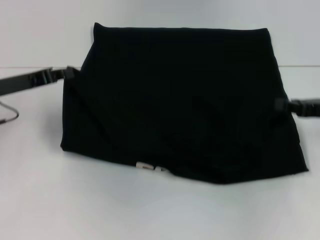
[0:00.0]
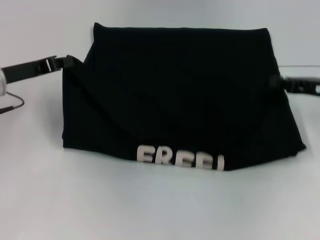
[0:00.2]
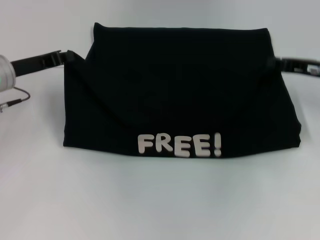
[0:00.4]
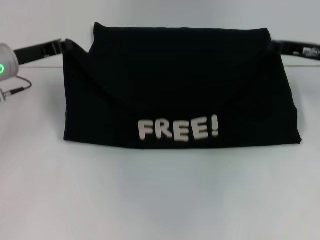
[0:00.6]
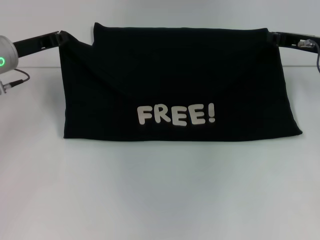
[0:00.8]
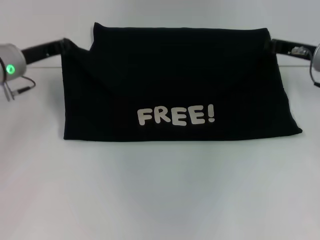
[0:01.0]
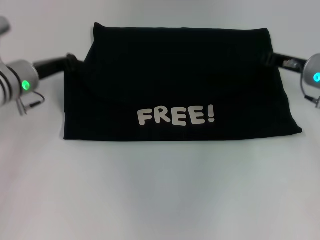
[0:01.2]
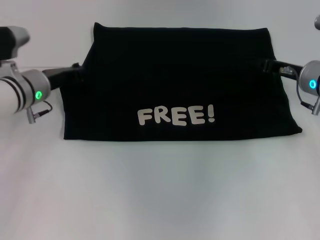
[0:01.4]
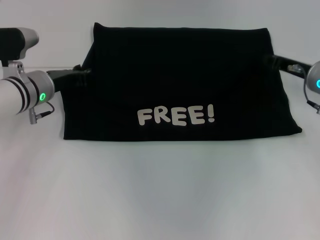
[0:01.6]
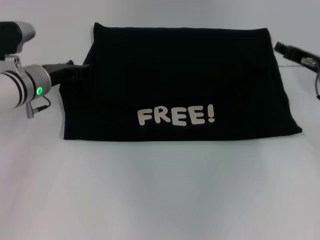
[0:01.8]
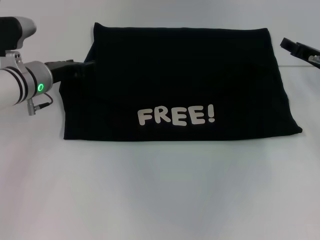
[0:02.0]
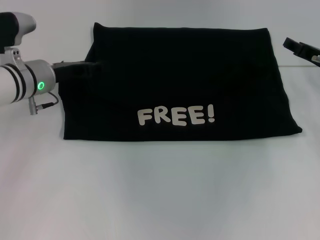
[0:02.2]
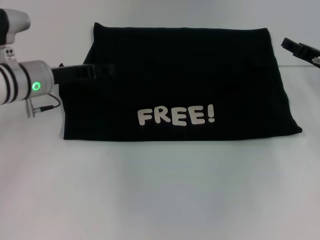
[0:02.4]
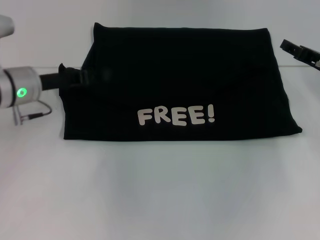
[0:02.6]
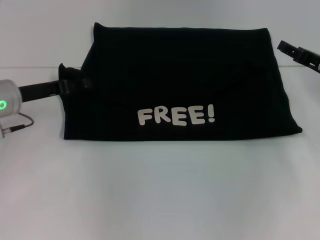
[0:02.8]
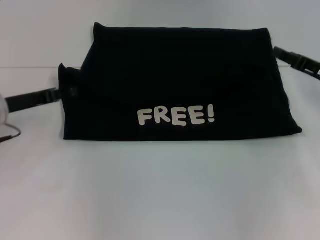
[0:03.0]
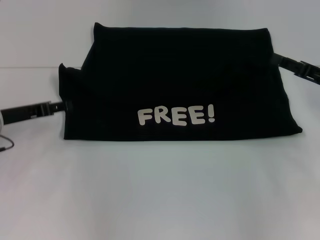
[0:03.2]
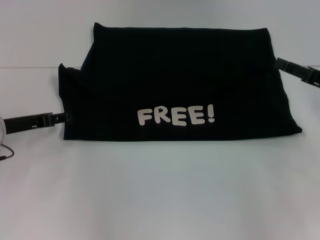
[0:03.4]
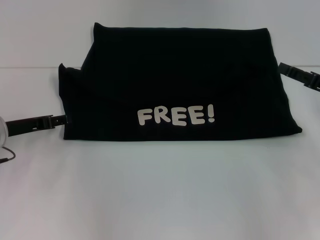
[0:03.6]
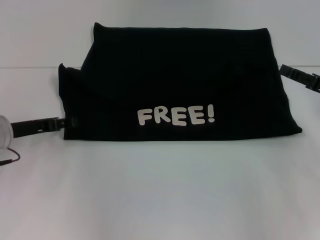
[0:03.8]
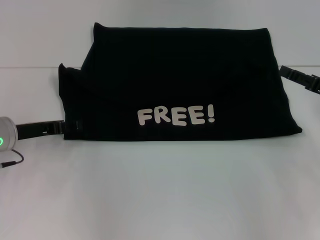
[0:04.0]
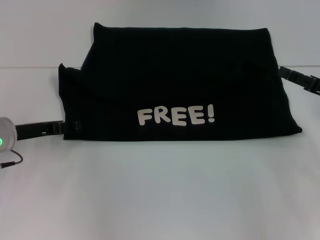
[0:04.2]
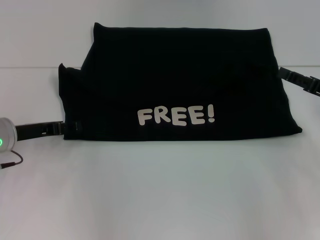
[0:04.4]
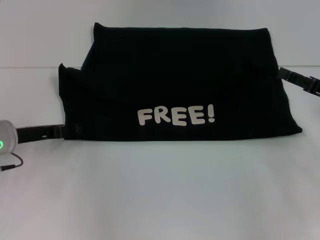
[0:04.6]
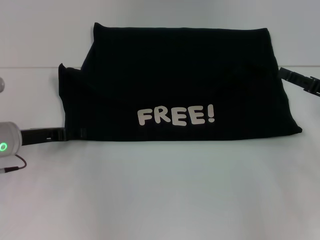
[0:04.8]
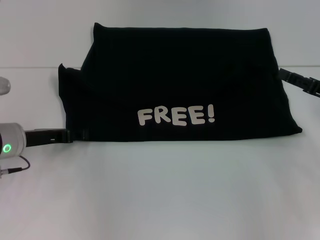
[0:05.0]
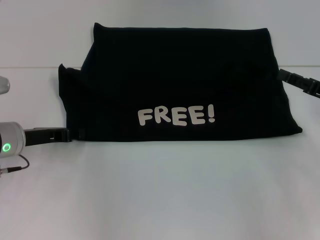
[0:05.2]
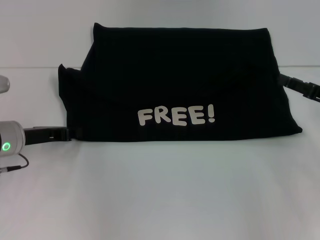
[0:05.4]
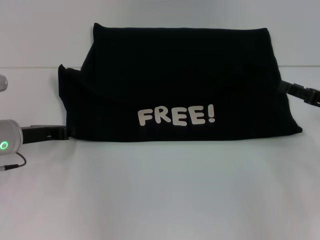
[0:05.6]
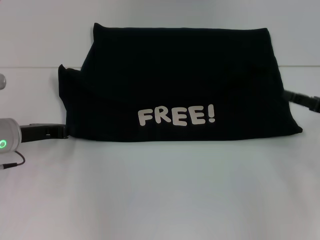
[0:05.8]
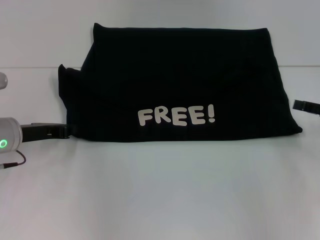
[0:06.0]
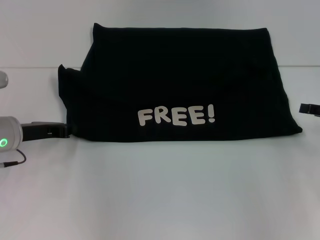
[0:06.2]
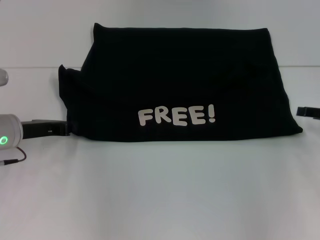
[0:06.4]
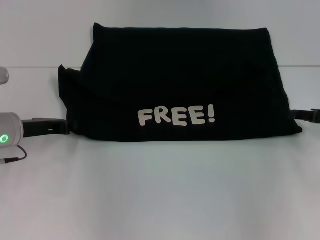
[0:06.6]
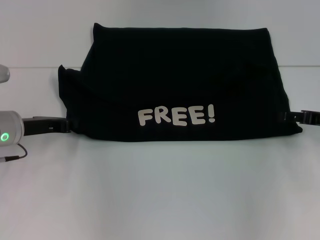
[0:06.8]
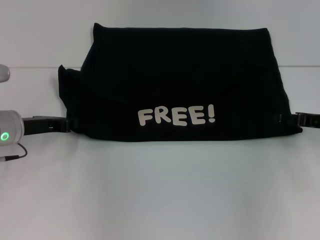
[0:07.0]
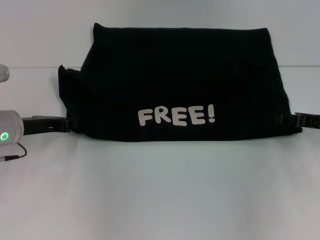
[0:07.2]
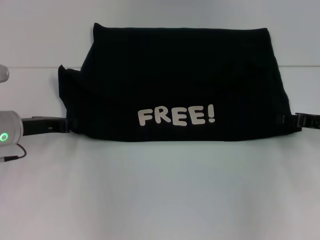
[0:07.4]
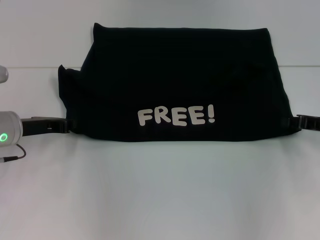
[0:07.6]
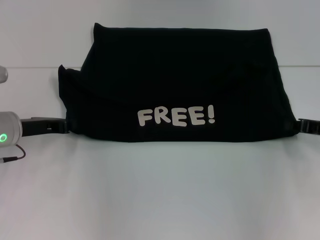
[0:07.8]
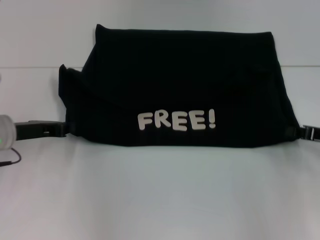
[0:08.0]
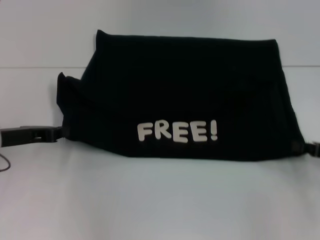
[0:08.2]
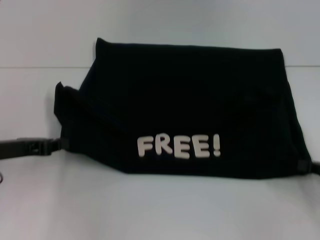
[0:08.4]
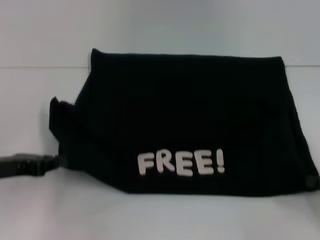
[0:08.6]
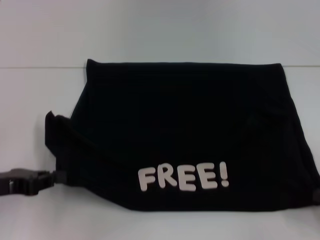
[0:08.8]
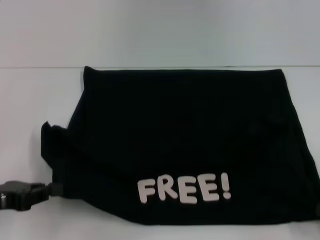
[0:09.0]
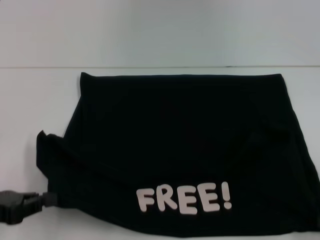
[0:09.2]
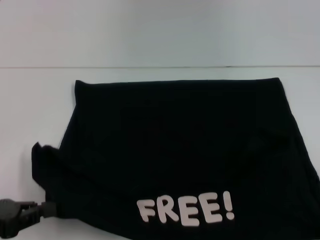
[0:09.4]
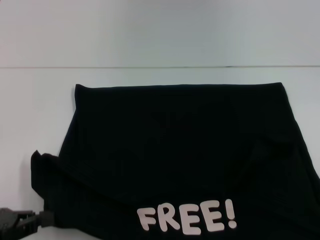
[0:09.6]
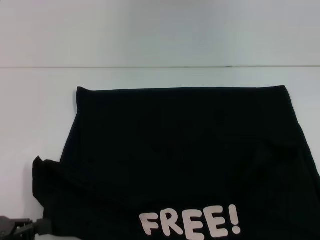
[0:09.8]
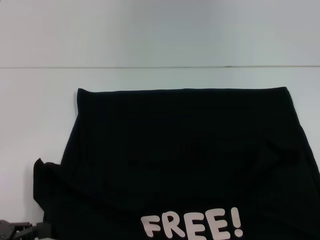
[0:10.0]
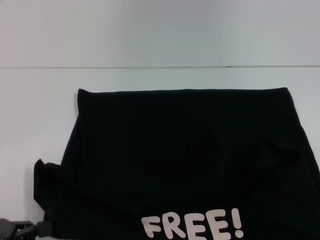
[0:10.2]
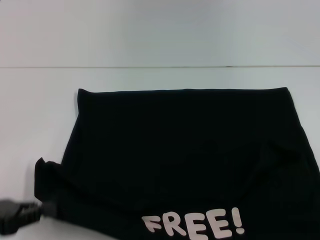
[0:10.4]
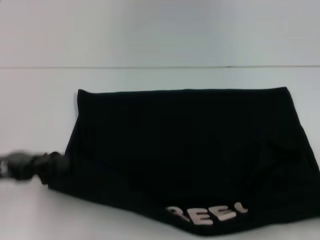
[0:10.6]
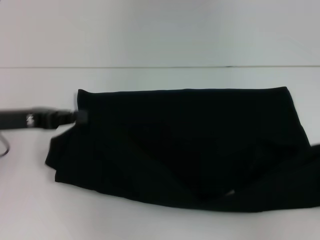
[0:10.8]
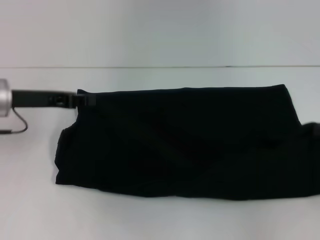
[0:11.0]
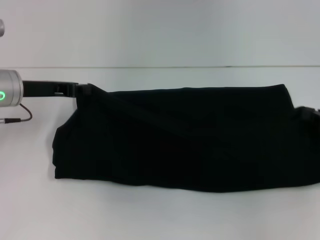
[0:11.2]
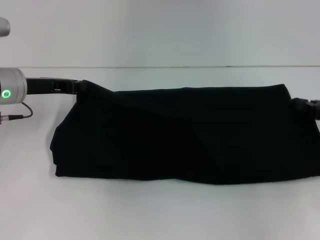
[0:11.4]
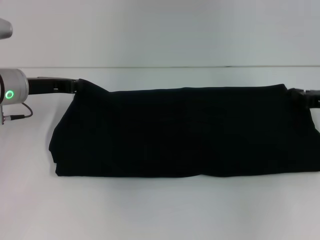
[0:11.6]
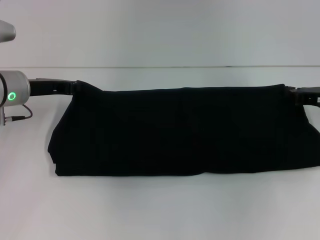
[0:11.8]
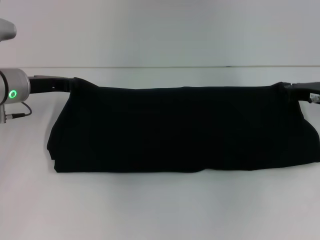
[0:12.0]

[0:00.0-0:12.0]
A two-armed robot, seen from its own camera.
Step, 0:00.0 to 0:03.0: Fold the clothes with your left hand.
Step, 0:00.0 to 0:03.0: Fold the clothes with your right hand.
Step, 0:03.2 to 0:10.0: Pull the clothes with your left hand.
Step, 0:03.2 to 0:10.0: Pull the clothes with your right hand.
0:00.0 to 0:01.6: The left gripper heads to the right and forward, covering some 10 cm. Meanwhile the right gripper travels forward and to the left by some 10 cm.
0:01.6 to 0:03.0: The right gripper ends up some 5 cm from where it was, and opens up. The left gripper goes about 10 cm to the left and backward, and opens.
0:03.0 to 0:04.4: There are only small adjustments of the grippers.
0:04.4 to 0:06.0: The left gripper closes its fingers.
0:06.0 to 0:07.6: The right gripper closes up.
0:07.6 to 0:09.0: Both grippers travel together backward, roughly 15 cm.
0:10.4 to 0:12.0: The left gripper moves forward, approximately 20 cm. Meanwhile the right gripper shifts about 25 cm forward and to the left.

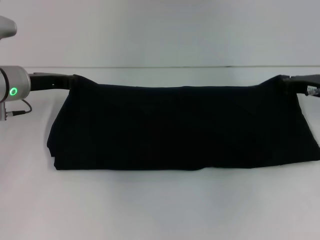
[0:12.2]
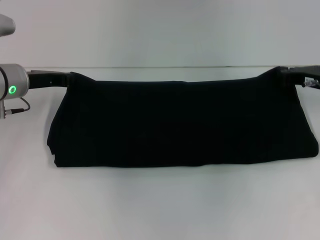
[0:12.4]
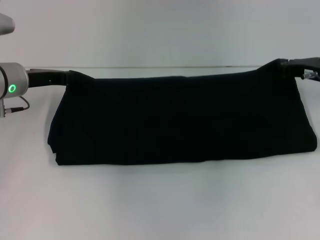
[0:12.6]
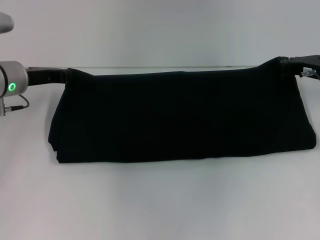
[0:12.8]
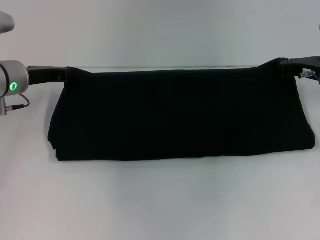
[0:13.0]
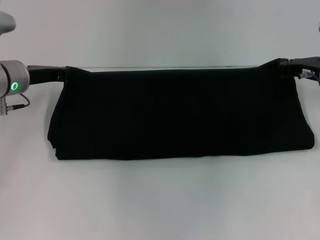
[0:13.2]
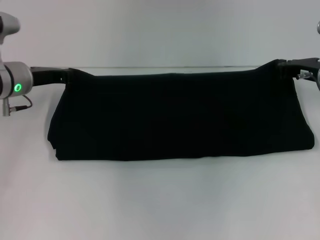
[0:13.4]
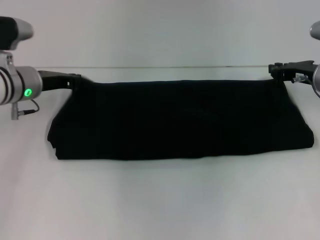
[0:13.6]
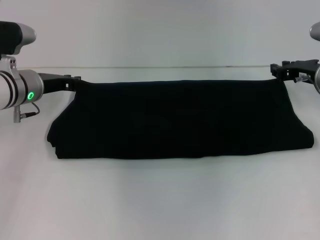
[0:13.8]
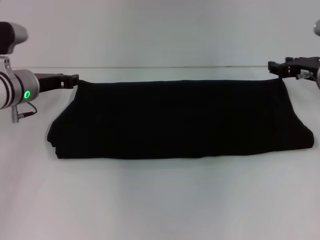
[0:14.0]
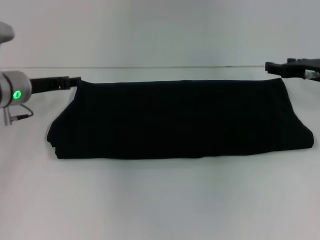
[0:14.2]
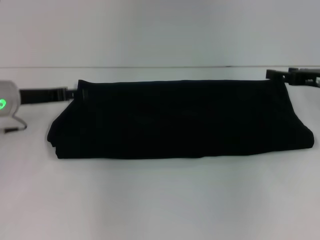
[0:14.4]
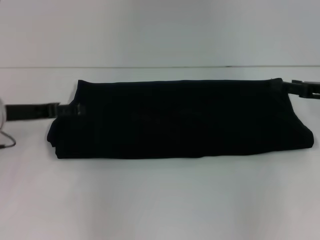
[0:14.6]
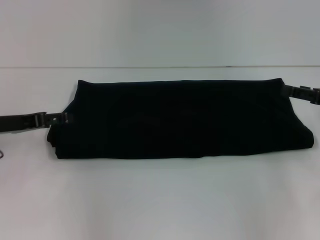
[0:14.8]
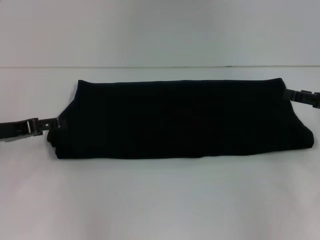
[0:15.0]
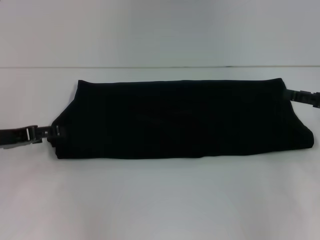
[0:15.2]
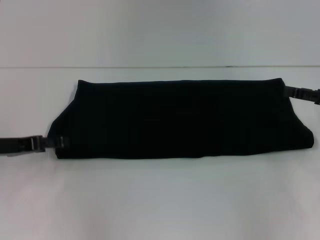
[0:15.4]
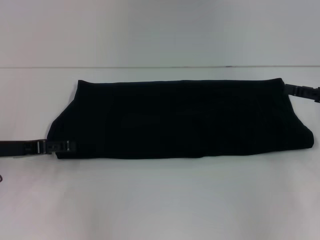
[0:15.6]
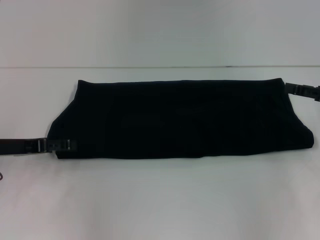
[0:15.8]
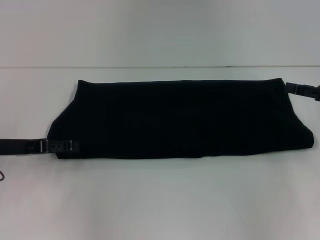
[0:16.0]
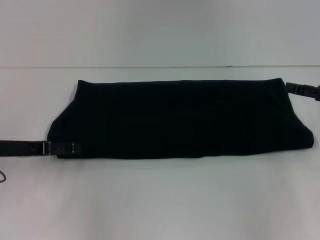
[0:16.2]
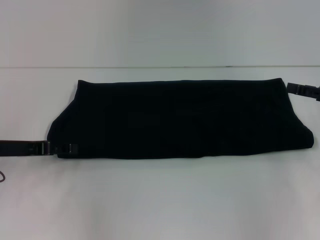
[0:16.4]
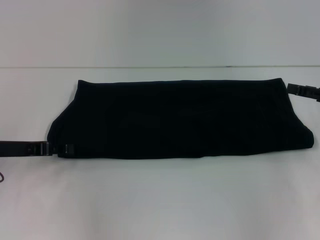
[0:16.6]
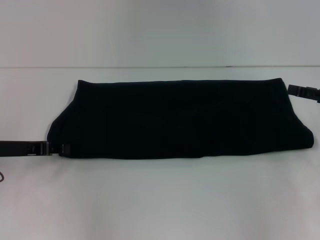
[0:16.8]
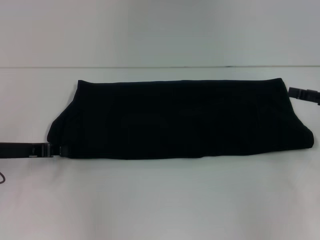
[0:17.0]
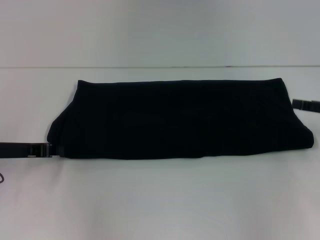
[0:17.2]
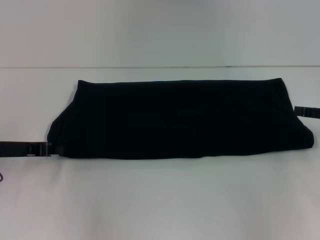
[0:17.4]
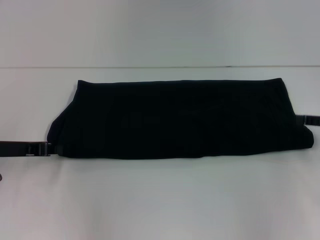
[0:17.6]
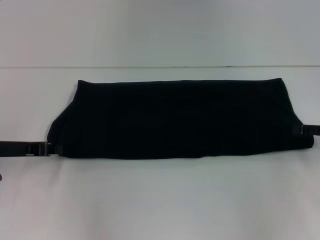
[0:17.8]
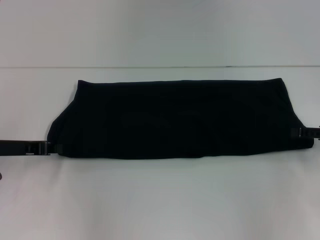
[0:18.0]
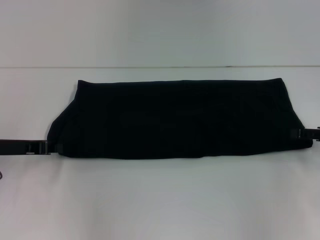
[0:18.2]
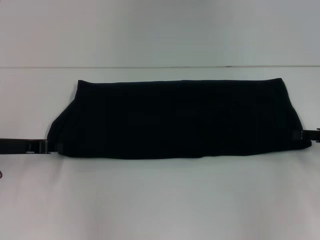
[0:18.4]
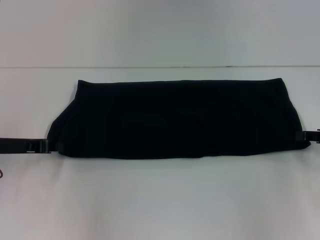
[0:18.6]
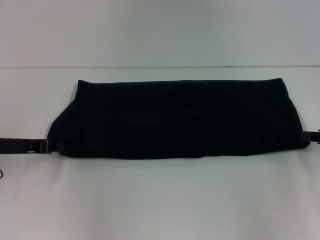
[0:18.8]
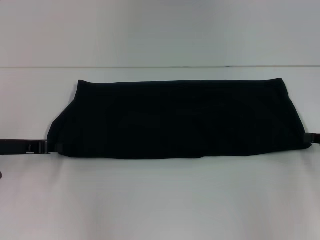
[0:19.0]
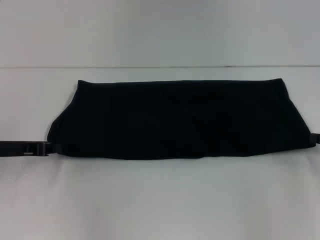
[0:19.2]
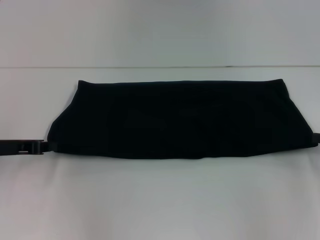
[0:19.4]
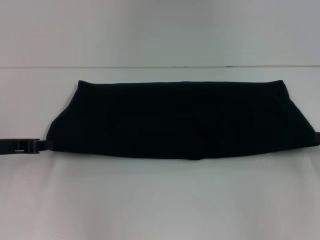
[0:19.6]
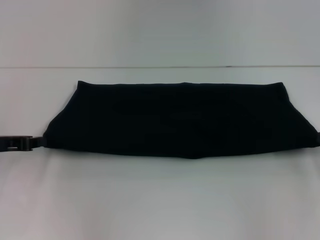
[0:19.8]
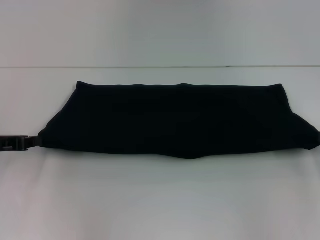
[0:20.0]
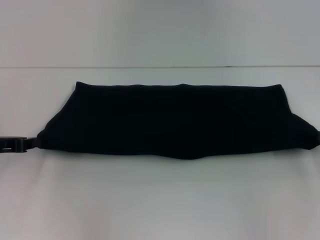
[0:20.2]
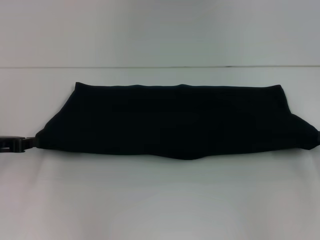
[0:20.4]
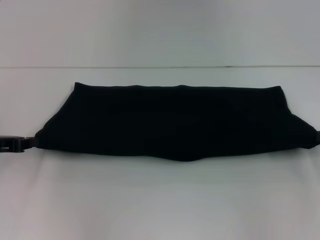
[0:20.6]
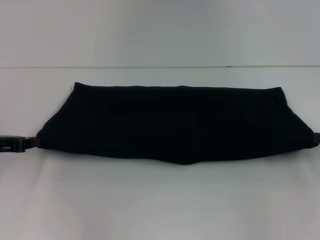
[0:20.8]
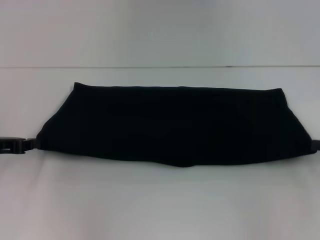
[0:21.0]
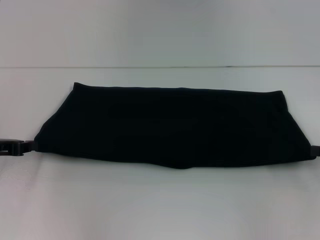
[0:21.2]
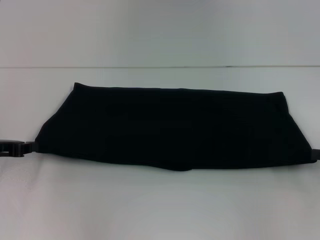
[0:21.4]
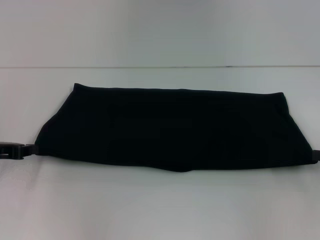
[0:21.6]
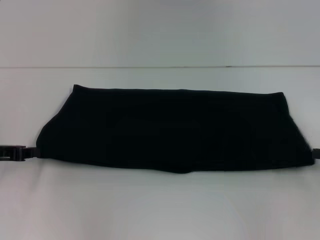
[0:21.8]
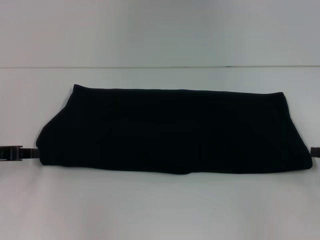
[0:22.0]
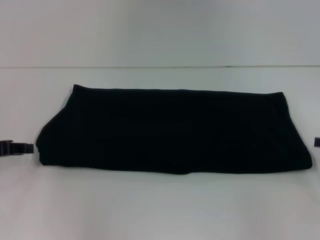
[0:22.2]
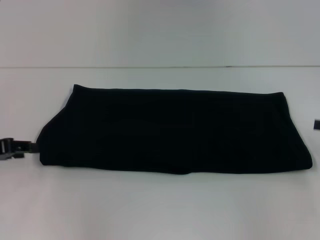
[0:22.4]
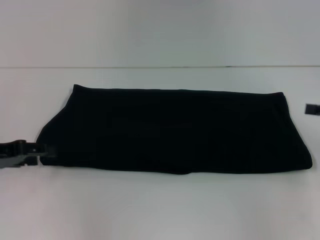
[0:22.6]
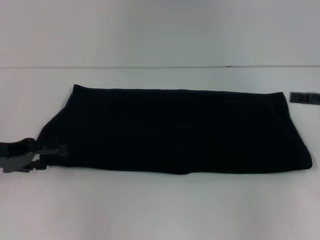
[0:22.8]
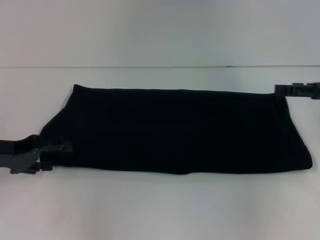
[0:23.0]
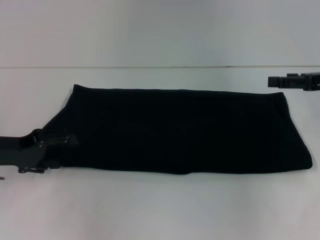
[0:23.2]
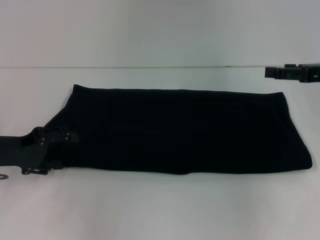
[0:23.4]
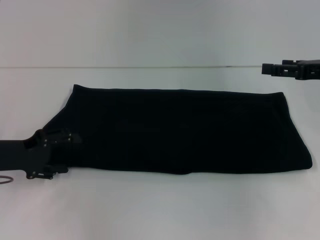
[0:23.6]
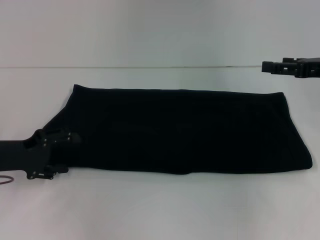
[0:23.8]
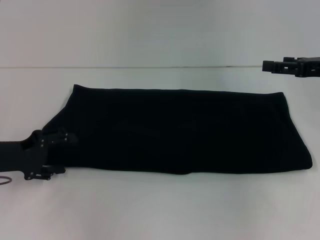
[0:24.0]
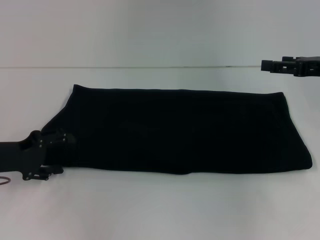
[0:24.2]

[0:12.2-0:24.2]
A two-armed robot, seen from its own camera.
Step, 0:12.2 to 0:14.2: Fold the clothes with your right hand.
0:12.2 to 0:13.8: There are only small adjustments of the grippers.
0:13.8 to 0:15.2: The left gripper travels backward and to the left by some 15 cm, and opens up, while the right gripper goes about 10 cm backward and to the right, and opens its fingers.
0:15.2 to 0:16.6: The grippers move only a little.
0:18.2 to 0:19.8: The right gripper closes.
0:19.8 to 0:21.2: The grippers make only small movements.
0:21.2 to 0:22.6: The left gripper opens. Meanwhile the right gripper travels upward by roughly 5 cm, and opens its fingers.
0:22.6 to 0:24.2: The left gripper opens its fingers. The right gripper moves to the left and forward, some 10 cm, and opens its fingers.
